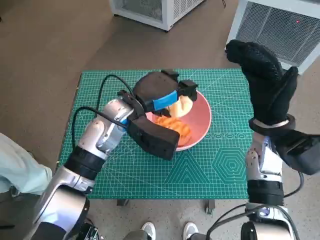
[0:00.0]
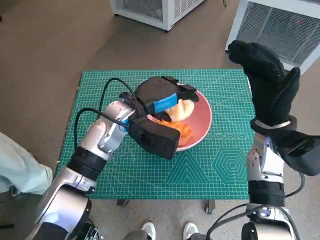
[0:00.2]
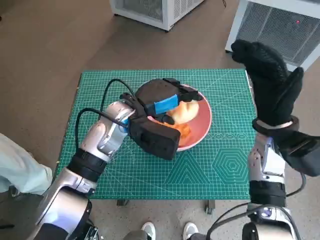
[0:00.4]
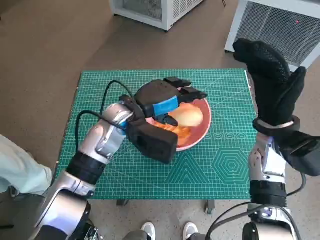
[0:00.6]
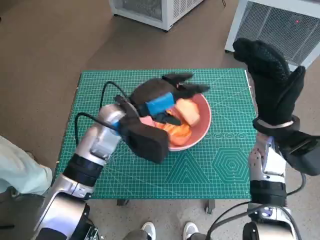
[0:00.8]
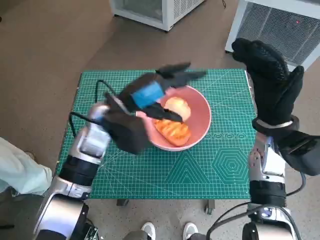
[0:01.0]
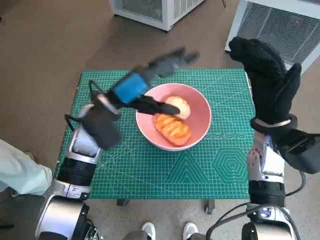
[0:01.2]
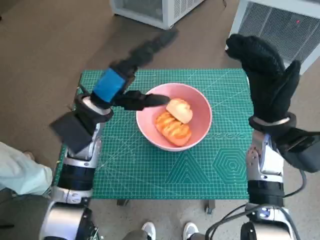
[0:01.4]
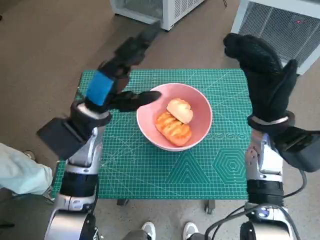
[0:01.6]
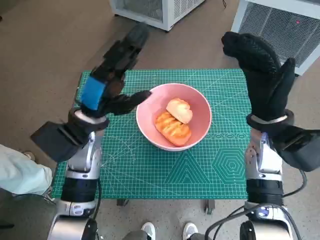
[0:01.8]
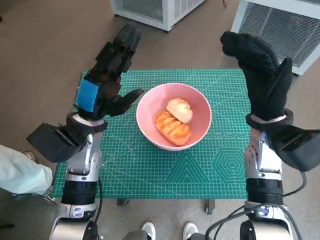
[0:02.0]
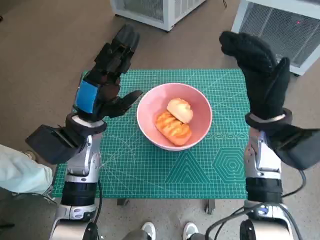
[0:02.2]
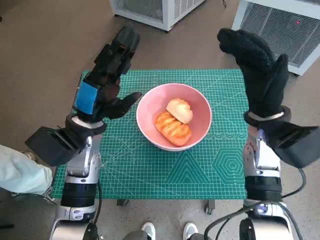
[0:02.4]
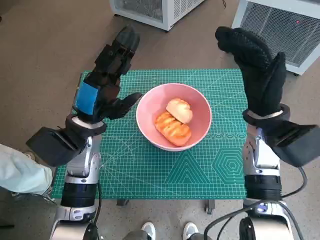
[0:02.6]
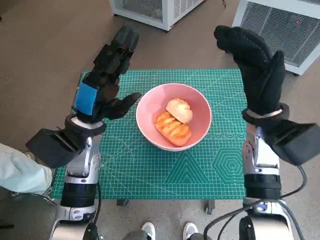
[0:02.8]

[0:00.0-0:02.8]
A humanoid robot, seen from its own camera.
Task of the whole recording: Push the bowl into the center of the table and put the bread into the bowl.
0:00.0 to 0:01.4: The left hand shifts approximately 5 cm to the left.

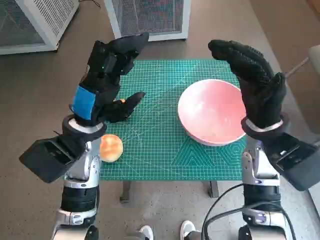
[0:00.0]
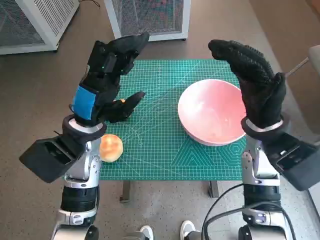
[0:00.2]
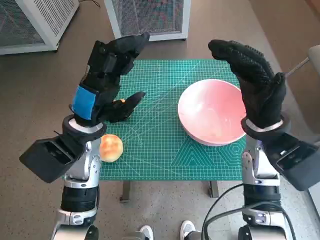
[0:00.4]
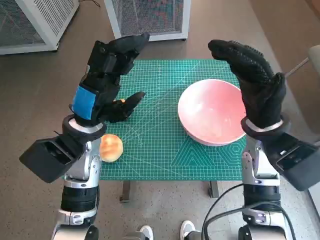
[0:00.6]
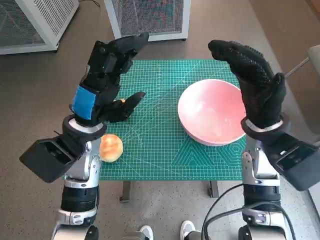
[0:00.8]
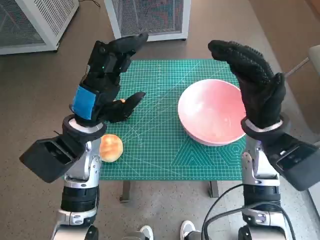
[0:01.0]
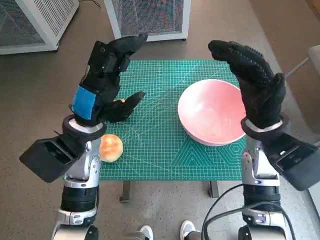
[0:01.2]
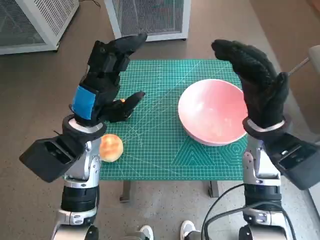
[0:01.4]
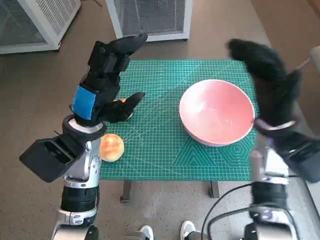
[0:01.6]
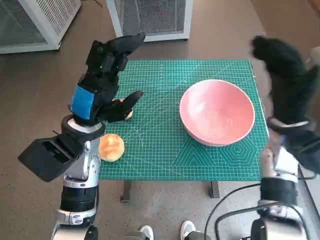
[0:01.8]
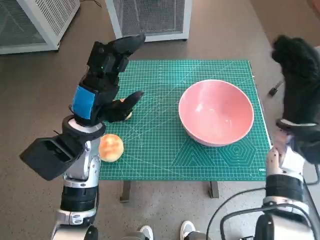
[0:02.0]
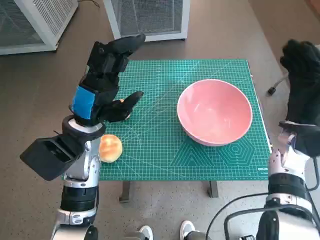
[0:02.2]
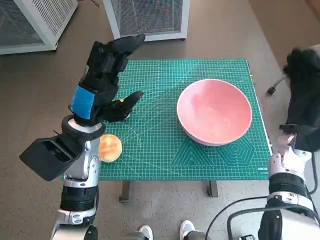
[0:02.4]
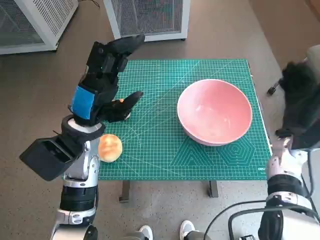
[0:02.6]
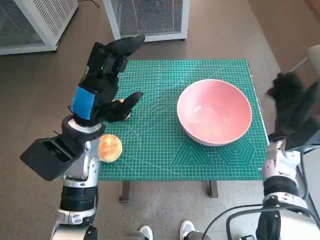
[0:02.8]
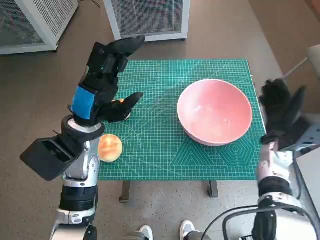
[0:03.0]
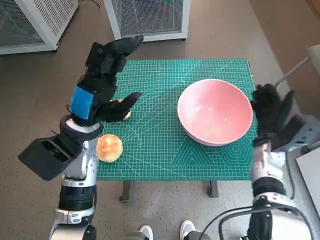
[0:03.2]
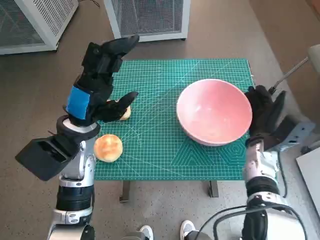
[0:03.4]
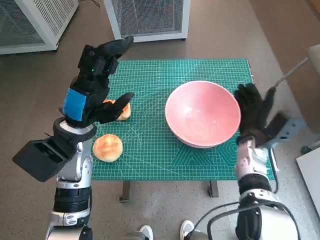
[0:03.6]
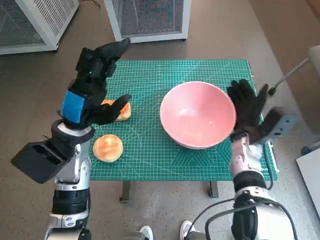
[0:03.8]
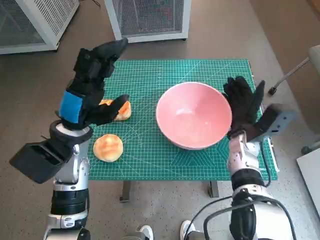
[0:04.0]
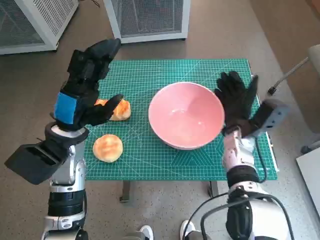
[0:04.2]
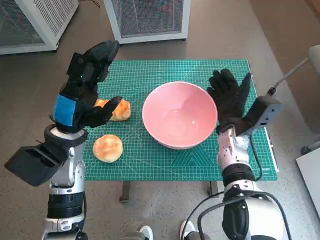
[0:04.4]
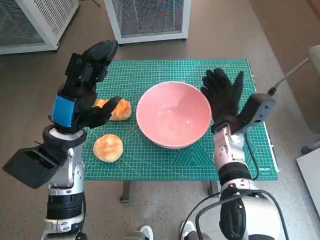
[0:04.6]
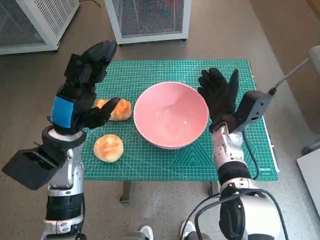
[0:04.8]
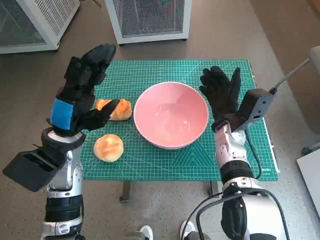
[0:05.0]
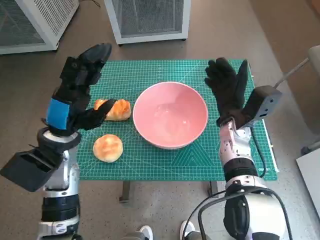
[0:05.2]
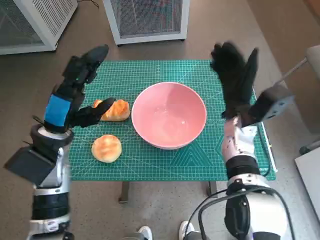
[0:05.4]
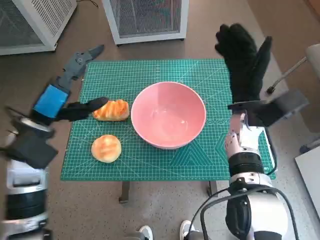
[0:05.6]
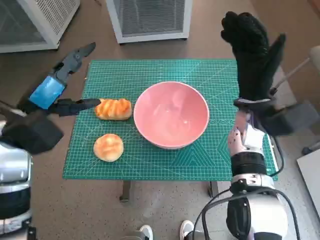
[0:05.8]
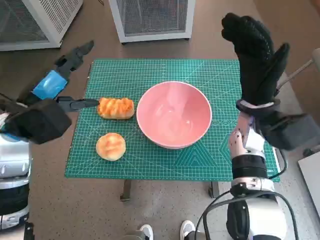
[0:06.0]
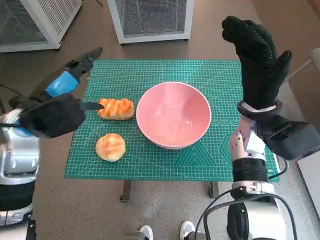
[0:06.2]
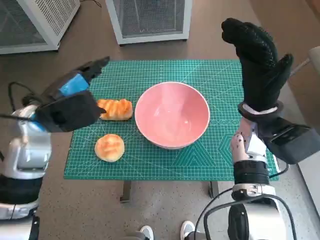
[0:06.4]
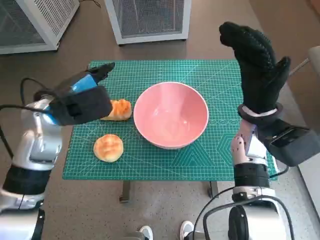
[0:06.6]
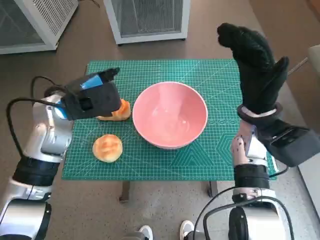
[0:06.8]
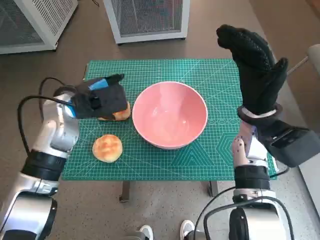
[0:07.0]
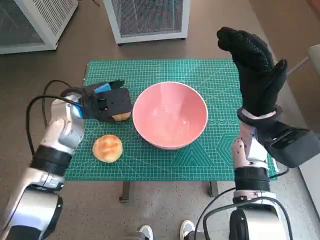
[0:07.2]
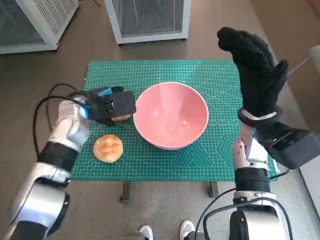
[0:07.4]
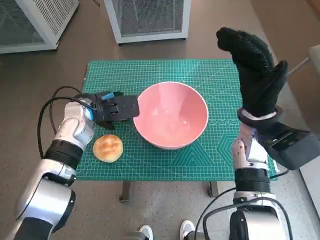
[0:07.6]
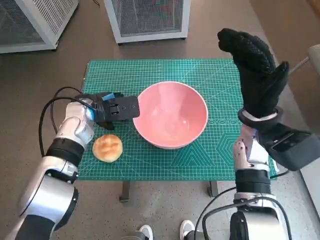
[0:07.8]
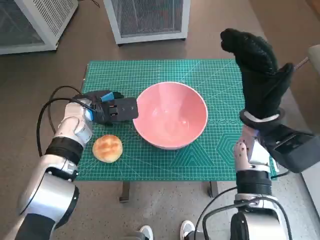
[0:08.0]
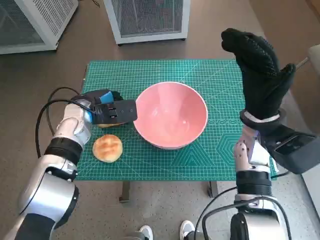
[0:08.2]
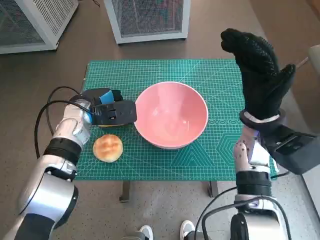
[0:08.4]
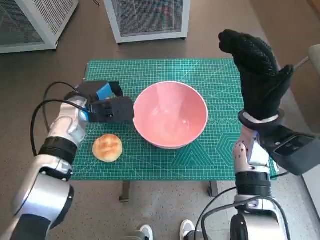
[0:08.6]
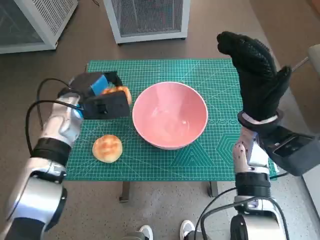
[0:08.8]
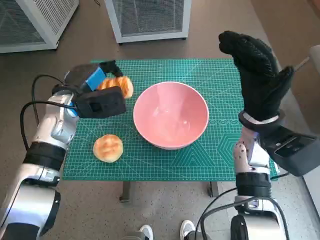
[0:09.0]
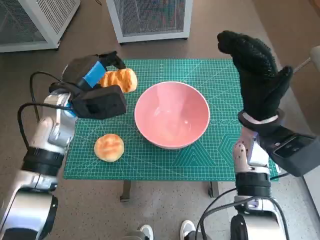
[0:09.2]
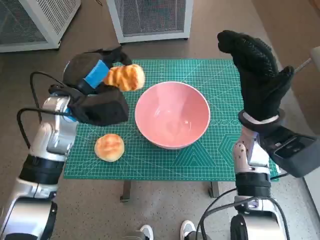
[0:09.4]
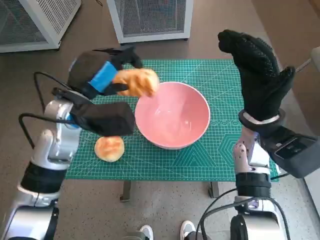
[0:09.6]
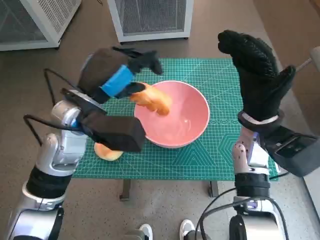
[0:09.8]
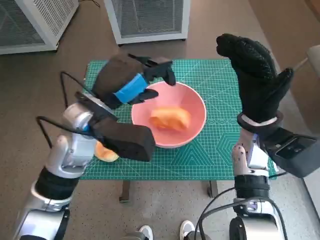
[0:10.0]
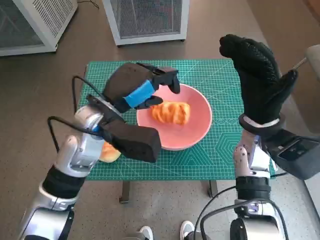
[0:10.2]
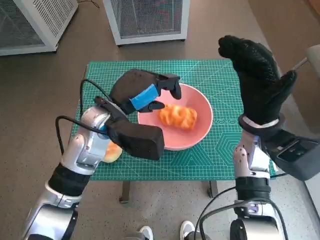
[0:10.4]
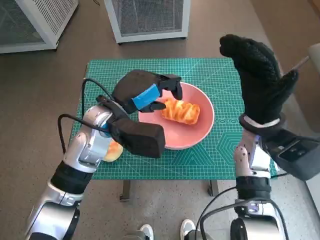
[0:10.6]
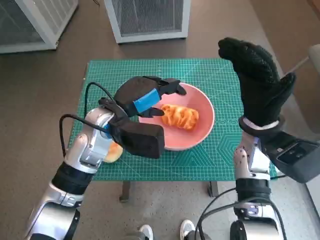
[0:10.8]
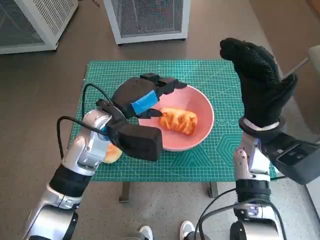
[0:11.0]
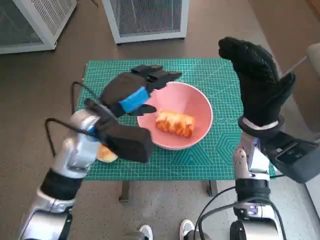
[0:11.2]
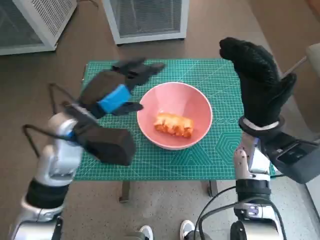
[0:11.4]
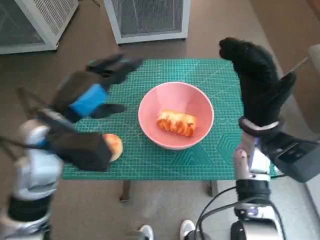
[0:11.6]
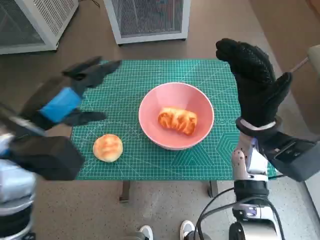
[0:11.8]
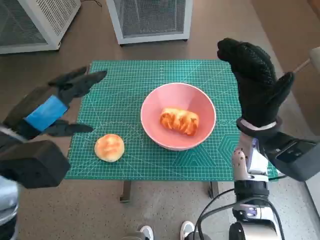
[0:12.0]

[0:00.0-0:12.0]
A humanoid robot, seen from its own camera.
Task of the whole recording: Push the bowl into the center of the table and put the bread into the bowl.
Step, 0:00.0 to 0:05.0: Move the pink bowl to the center of table with right hand.
Step, 0:05.2 to 0:08.2: Grasp the long bread with left hand.
Step, 0:08.4 to 0:10.4: Place the long bread in pink bowl with left hand.
0:01.6 to 0:03.0: The right hand travels downward and to the right by approximately 10 cm.
0:03.0 to 0:04.4: The right hand heads to the left, covering about 10 cm.
0:04.4 to 0:06.0: The left hand goes some 10 cm upward and to the left. Meanwhile the right hand shifts roughly 10 cm upward.
0:06.0 to 0:07.6: The left hand travels forward, downward and to the right by about 15 cm.
0:09.0 to 0:10.4: The left hand travels to the right and backward by roughly 10 cm.
0:10.4 to 0:12.0: The left hand heads to the left and backward, covering roughly 15 cm.

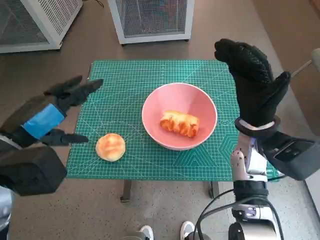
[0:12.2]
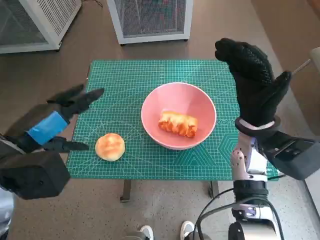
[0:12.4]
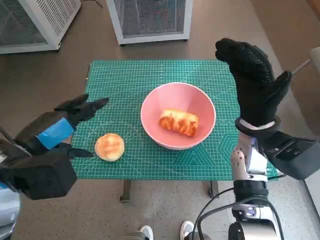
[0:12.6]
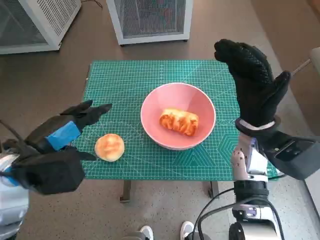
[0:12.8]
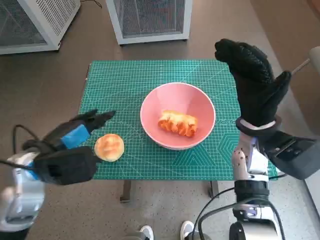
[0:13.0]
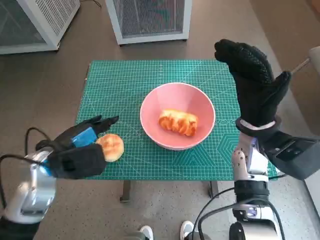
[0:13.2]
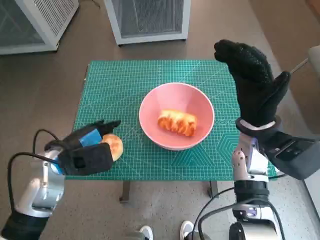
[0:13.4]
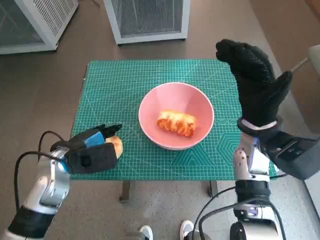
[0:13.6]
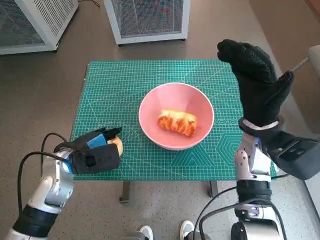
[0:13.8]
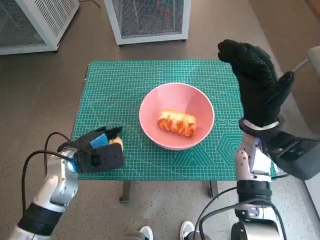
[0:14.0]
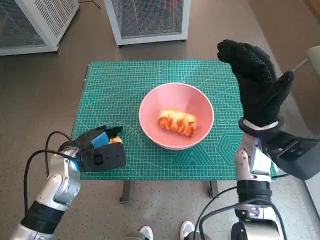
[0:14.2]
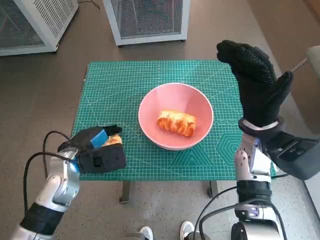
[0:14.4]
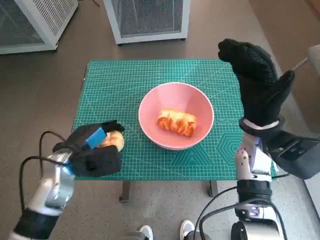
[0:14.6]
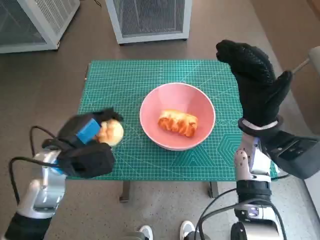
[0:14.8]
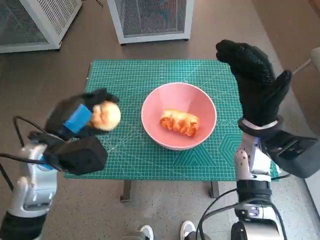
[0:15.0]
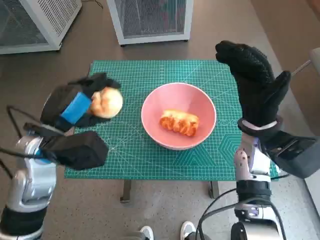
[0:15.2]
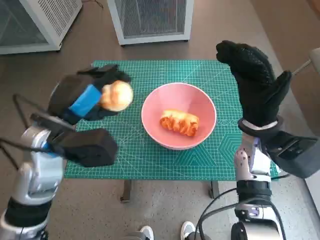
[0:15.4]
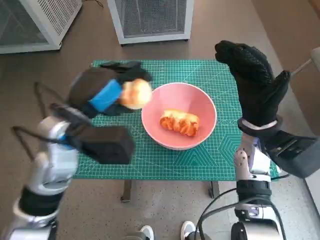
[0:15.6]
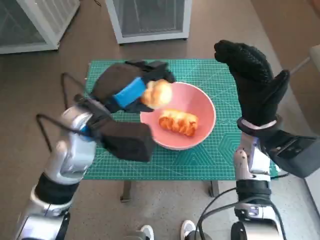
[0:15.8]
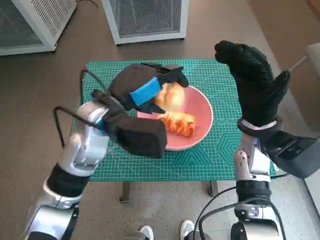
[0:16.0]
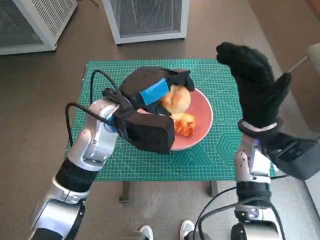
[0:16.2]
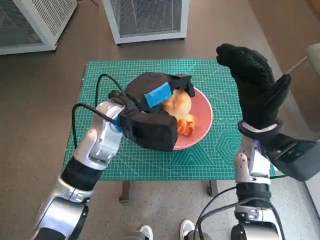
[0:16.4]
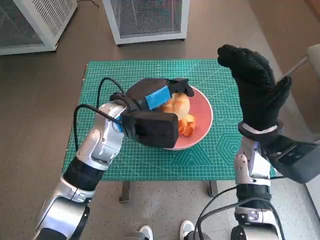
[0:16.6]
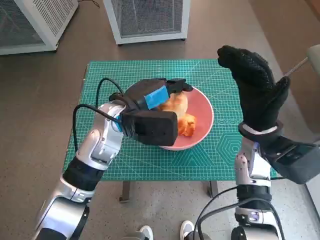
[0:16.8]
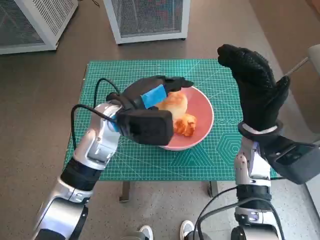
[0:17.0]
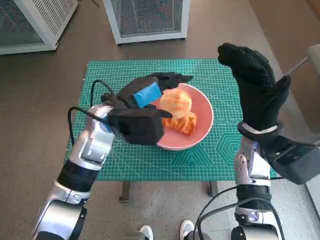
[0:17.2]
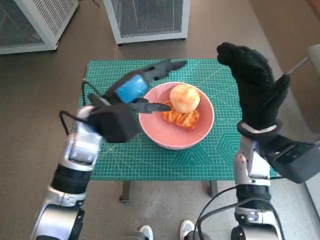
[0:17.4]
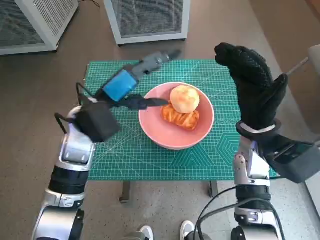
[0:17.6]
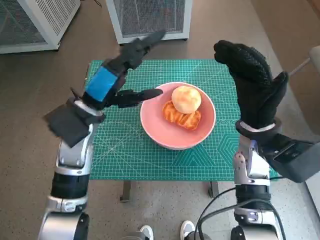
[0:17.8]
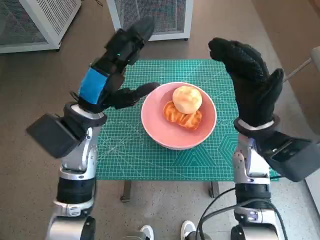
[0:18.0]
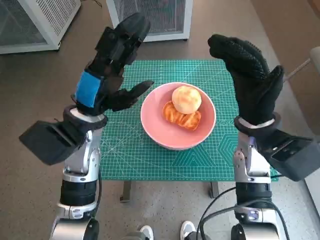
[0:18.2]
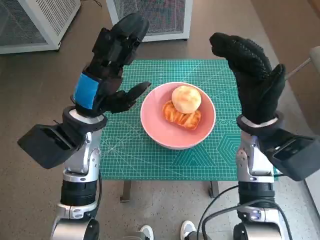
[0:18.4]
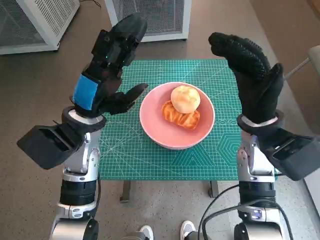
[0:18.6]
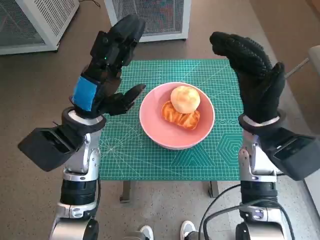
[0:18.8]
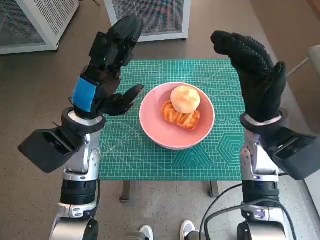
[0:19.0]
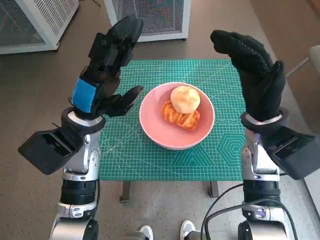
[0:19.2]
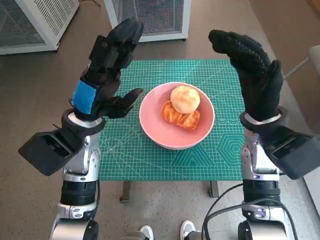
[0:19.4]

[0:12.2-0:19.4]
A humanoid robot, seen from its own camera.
Task of the whole recording: Push the bowl into the center of the table and put the bread into the bowl.
Step, 0:12.2 to 0:14.0: Grasp the round bread with left hand.
Step, 0:14.2 to 0:17.0: Place the round bread in pink bowl with left hand.
0:12.2 to 0:13.6: The left hand travels downward by approximately 10 cm.
0:13.6 to 0:15.0: The left hand ends up approximately 5 cm from where it was.
0:15.0 to 0:16.6: The left hand moves to the right and forward, some 15 cm.
0:16.6 to 0:18.0: The left hand moves to the left, some 5 cm.
